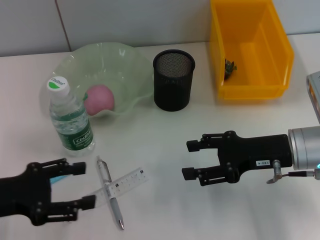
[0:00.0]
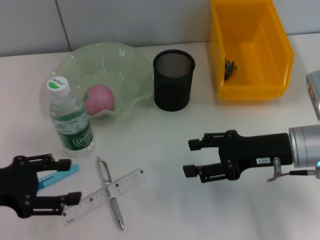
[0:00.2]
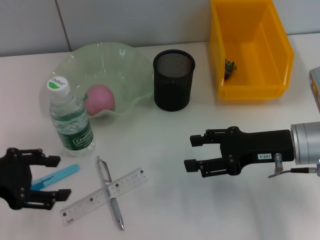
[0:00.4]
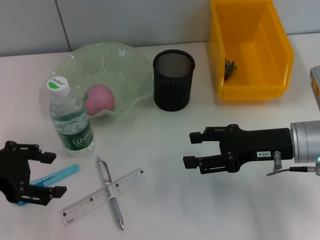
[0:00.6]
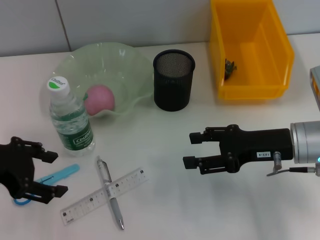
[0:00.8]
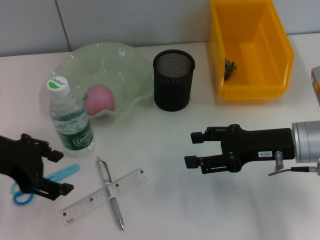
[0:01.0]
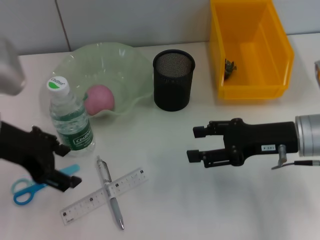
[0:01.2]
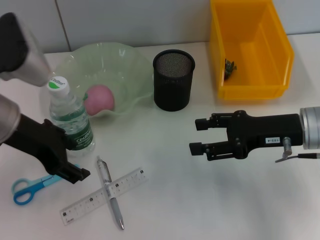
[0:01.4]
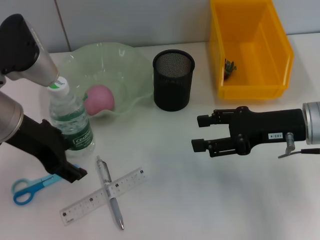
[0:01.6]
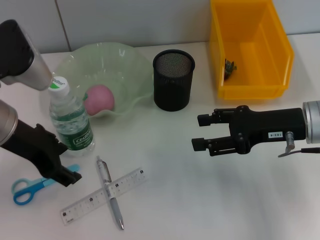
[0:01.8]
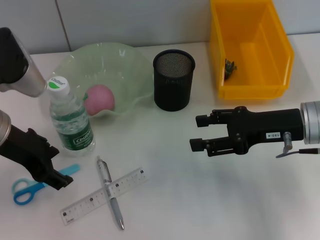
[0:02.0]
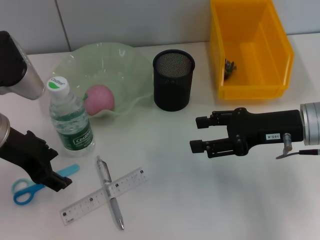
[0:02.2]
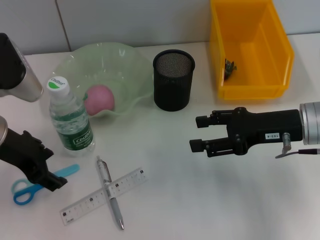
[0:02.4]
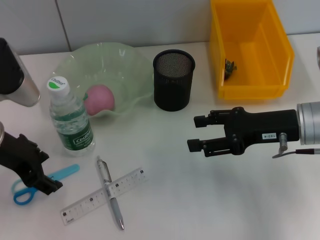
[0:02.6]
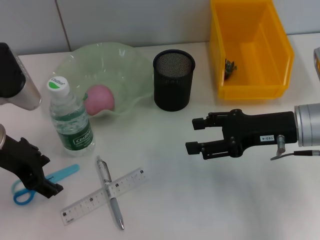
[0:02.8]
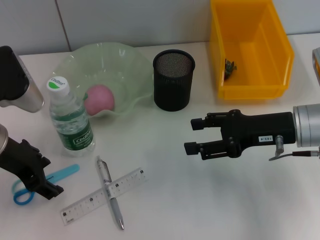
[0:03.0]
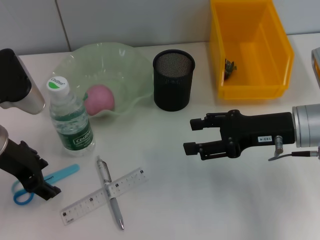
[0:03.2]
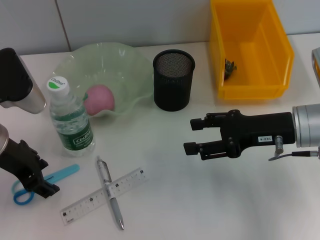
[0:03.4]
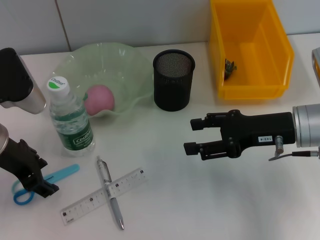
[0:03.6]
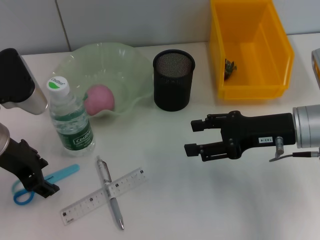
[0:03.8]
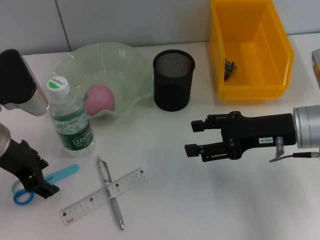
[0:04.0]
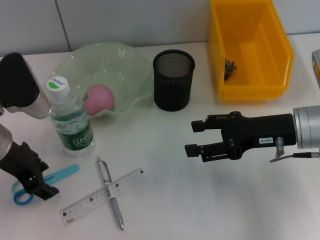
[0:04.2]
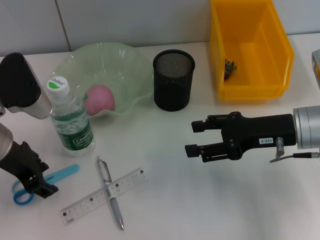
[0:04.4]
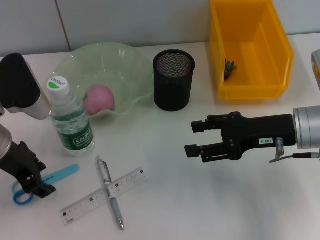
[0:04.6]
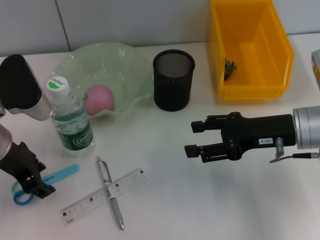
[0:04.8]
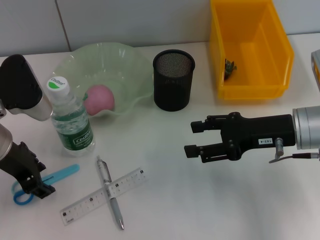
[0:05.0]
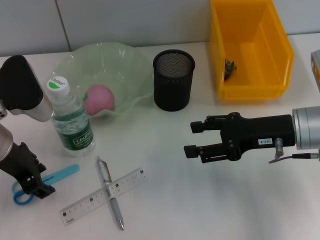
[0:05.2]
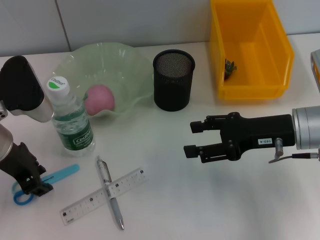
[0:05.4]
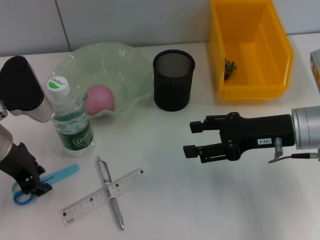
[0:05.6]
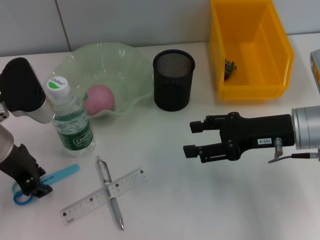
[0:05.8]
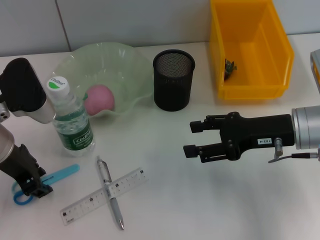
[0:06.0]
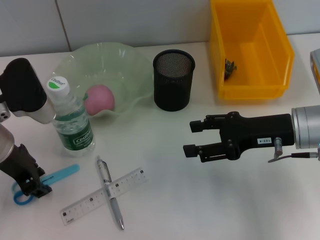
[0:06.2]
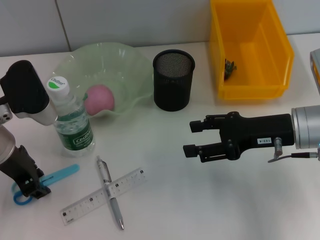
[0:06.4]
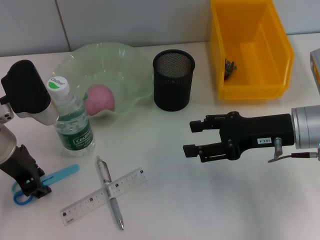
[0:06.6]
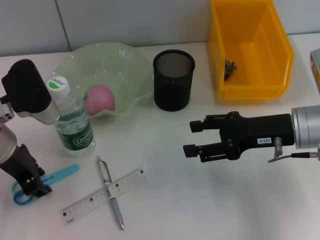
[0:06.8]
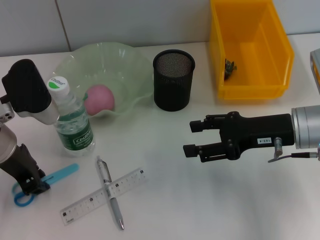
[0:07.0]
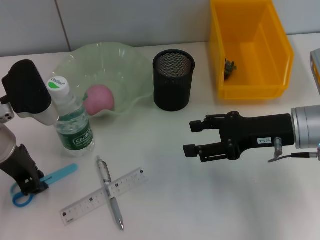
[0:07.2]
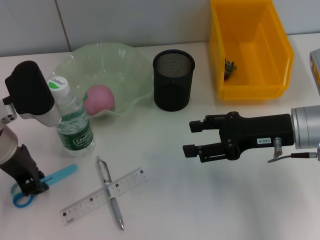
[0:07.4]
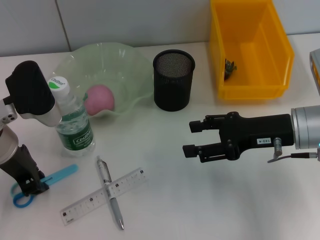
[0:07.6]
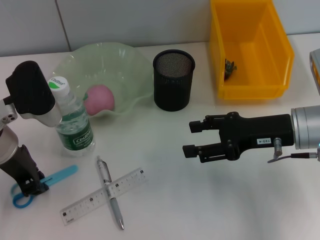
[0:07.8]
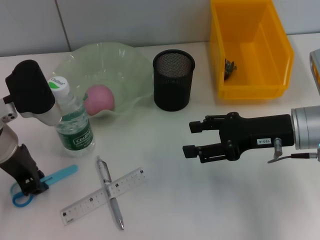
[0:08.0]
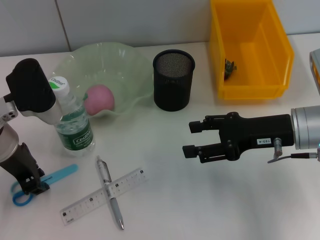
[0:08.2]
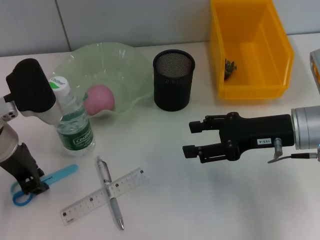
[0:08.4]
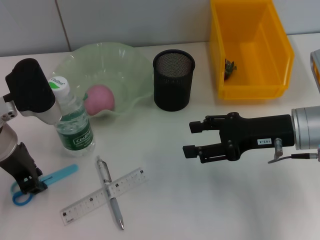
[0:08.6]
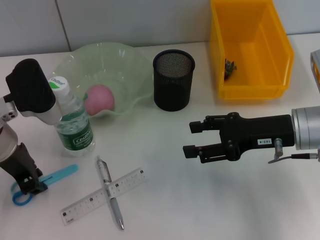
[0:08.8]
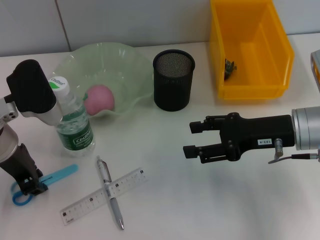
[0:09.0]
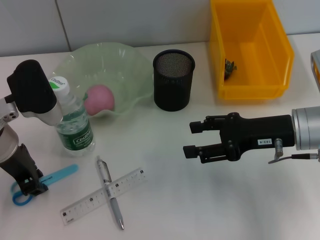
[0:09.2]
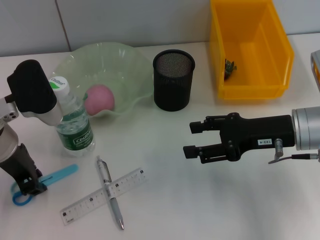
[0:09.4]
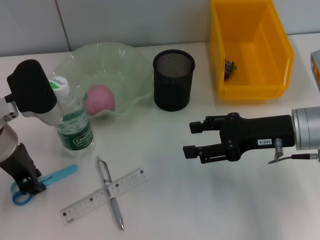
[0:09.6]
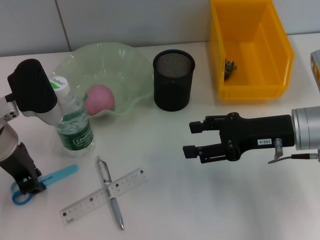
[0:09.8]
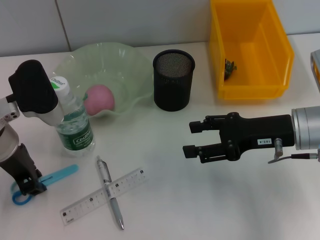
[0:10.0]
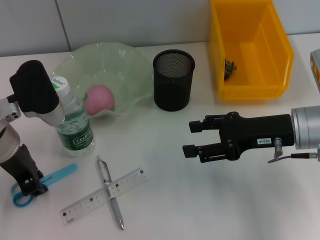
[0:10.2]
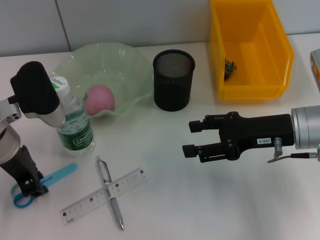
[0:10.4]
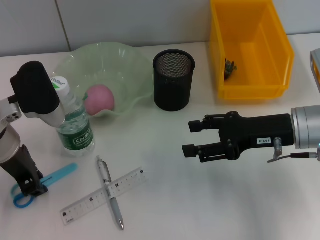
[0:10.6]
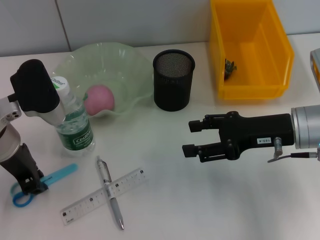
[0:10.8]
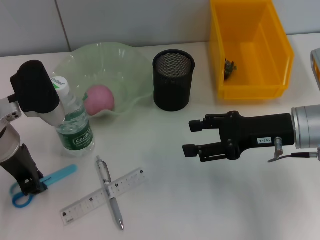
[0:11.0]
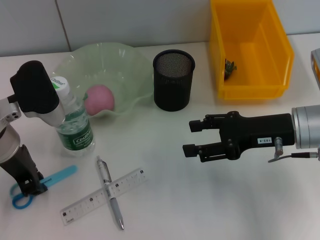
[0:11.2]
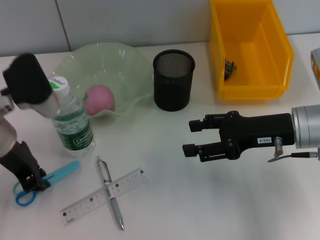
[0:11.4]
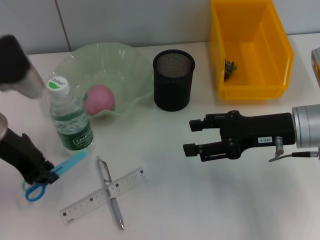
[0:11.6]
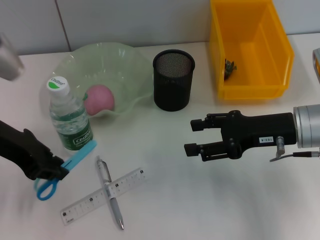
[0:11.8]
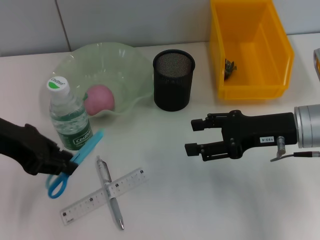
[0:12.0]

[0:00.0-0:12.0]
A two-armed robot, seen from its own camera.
Step, 0:00.0 to 0:11.0: Grab the blue scissors with the left hand.
0:00.0 to 0:01.6: The left gripper shifts roughly 15 cm to the right, forward and upward.
0:01.6 to 0:03.0: The grippers make only small movements.
0:03.0 to 0:04.4: Both grippers stay put.
0:04.4 to 0:06.0: The left gripper closes its fingers.
0:06.0 to 0:09.0: Both grippers stay put.
0:09.0 to 0:10.4: Both grippers stay put.
0:10.4 to 0:12.0: The left gripper moves upward, roughly 5 cm.

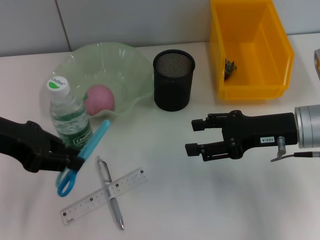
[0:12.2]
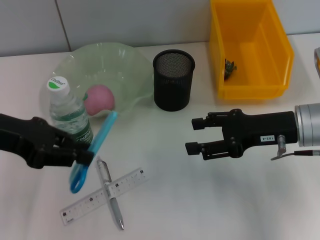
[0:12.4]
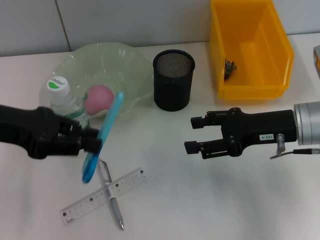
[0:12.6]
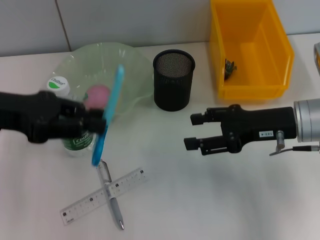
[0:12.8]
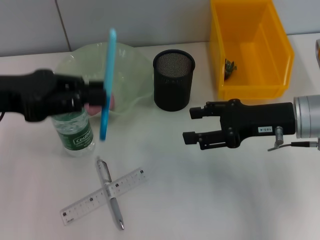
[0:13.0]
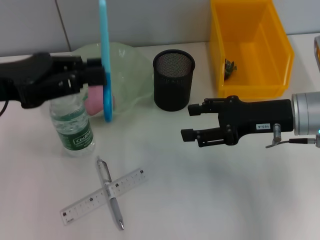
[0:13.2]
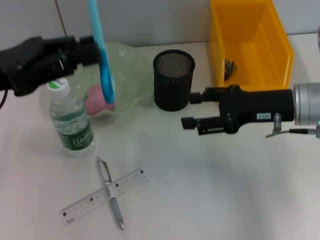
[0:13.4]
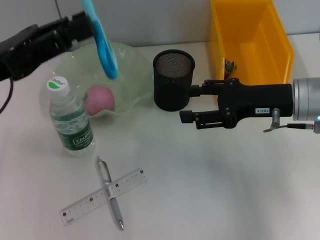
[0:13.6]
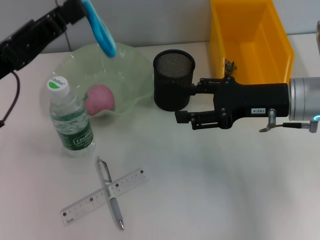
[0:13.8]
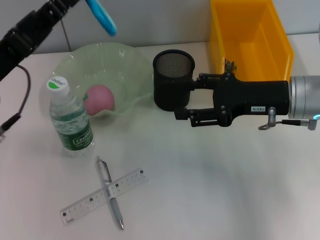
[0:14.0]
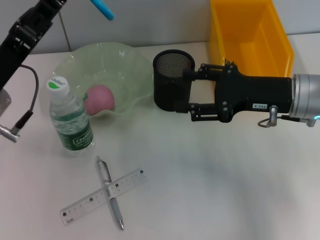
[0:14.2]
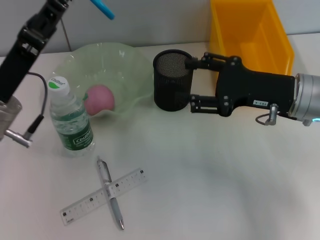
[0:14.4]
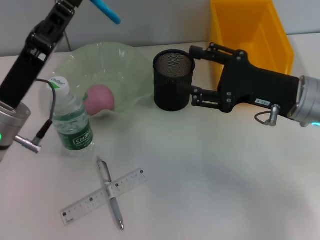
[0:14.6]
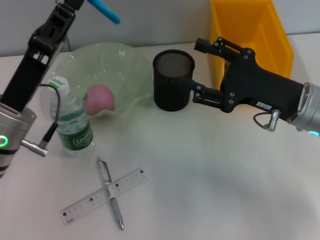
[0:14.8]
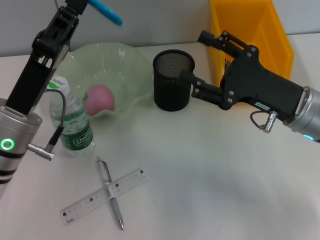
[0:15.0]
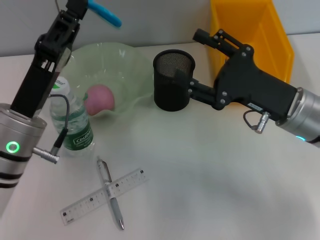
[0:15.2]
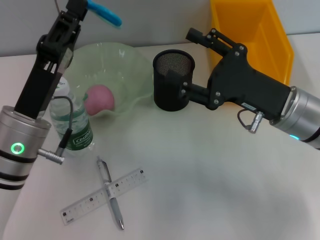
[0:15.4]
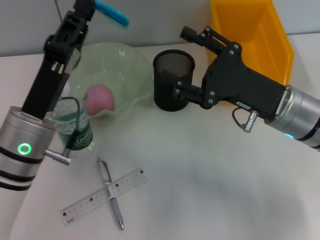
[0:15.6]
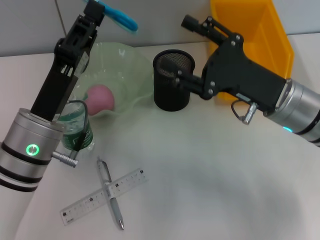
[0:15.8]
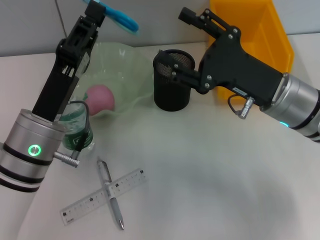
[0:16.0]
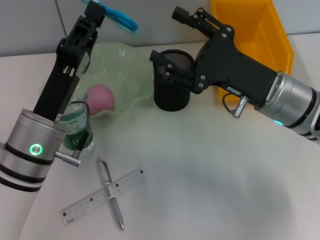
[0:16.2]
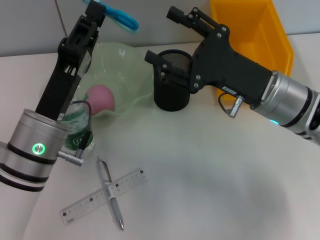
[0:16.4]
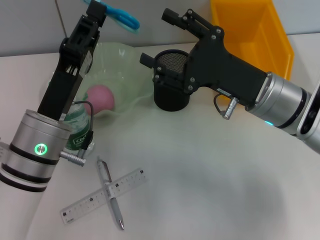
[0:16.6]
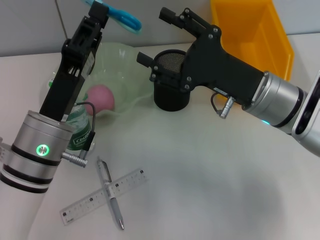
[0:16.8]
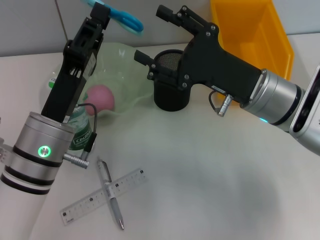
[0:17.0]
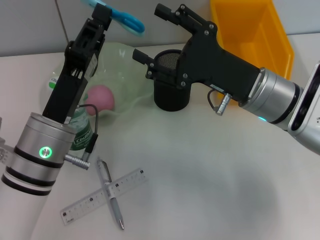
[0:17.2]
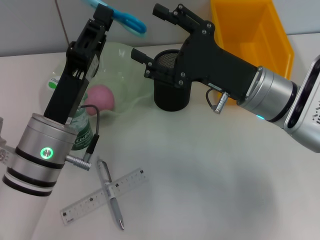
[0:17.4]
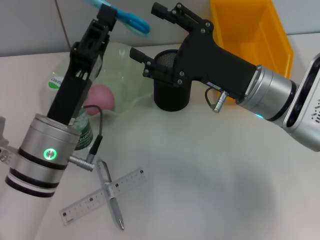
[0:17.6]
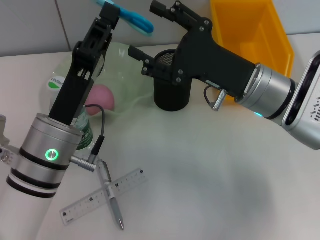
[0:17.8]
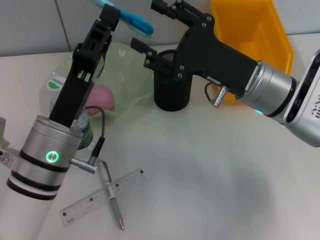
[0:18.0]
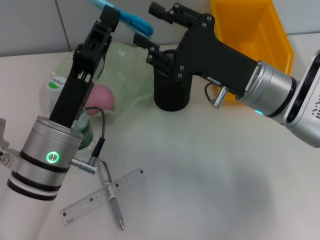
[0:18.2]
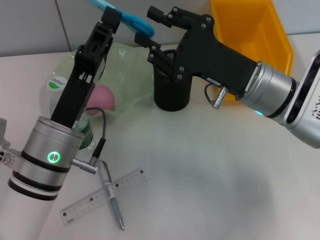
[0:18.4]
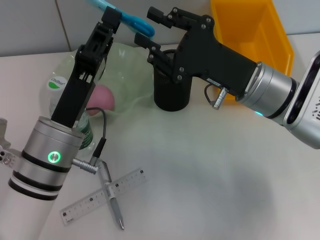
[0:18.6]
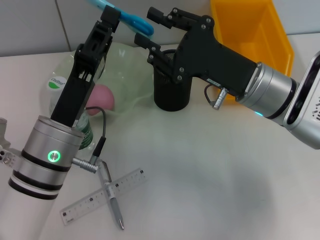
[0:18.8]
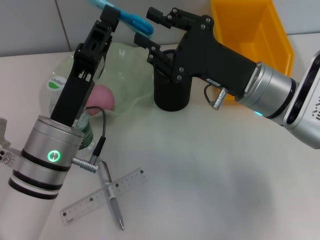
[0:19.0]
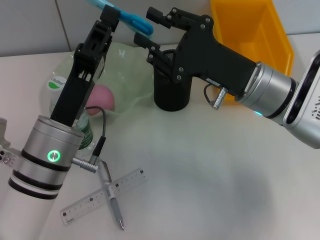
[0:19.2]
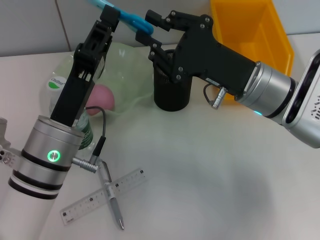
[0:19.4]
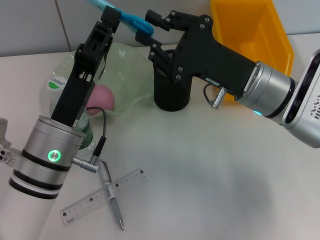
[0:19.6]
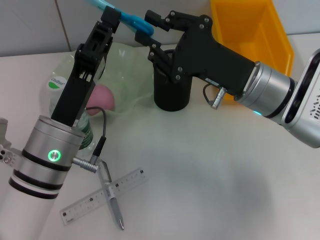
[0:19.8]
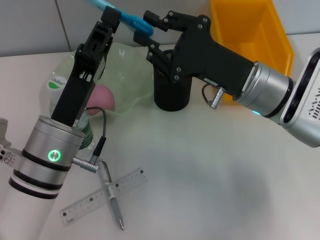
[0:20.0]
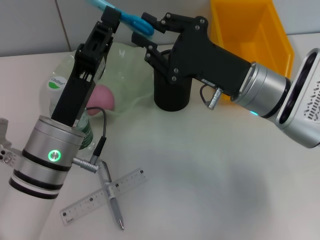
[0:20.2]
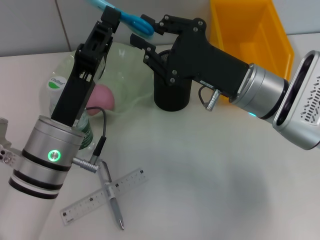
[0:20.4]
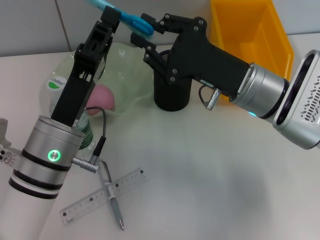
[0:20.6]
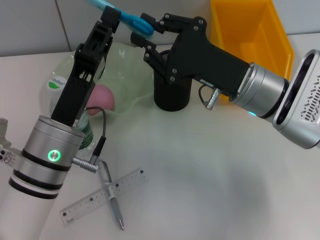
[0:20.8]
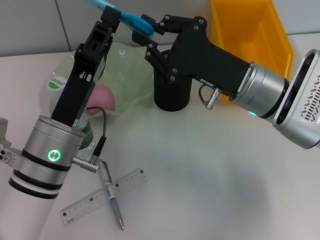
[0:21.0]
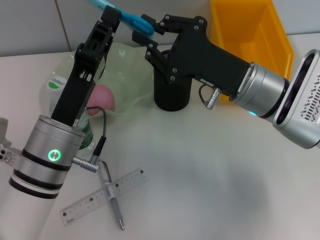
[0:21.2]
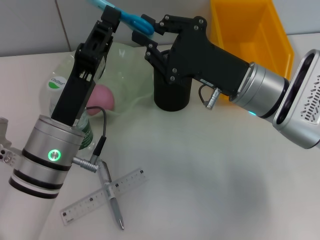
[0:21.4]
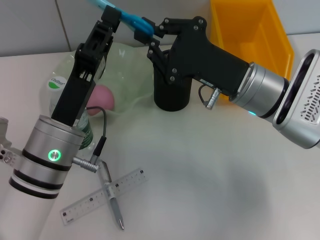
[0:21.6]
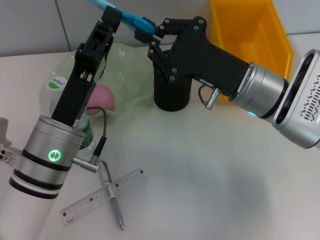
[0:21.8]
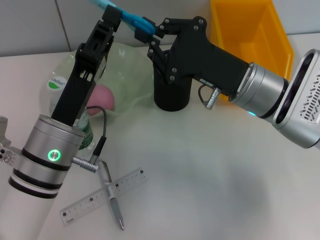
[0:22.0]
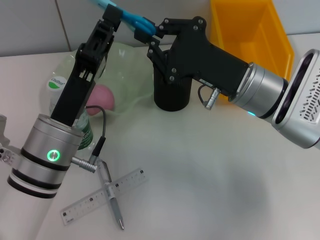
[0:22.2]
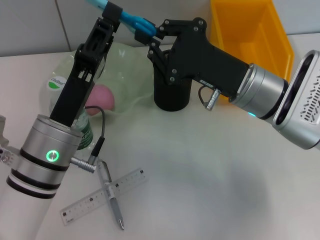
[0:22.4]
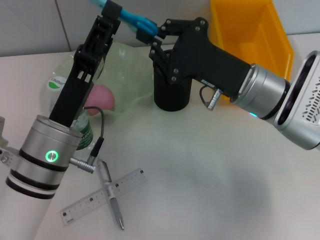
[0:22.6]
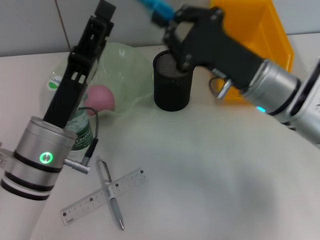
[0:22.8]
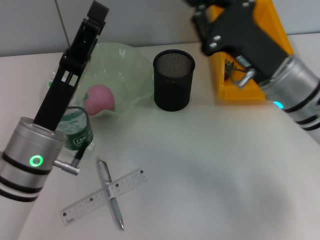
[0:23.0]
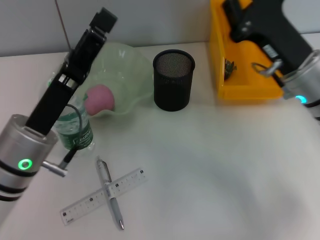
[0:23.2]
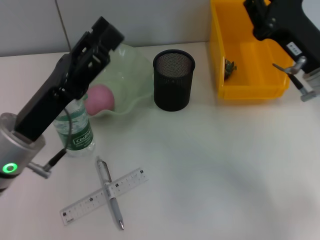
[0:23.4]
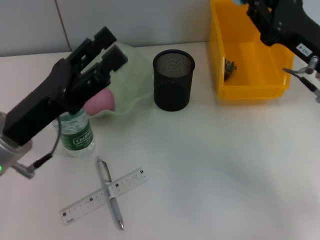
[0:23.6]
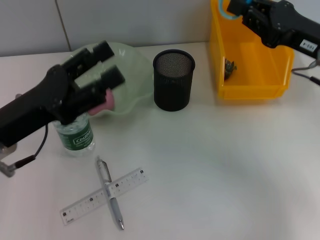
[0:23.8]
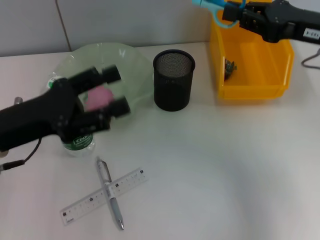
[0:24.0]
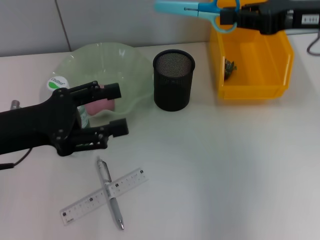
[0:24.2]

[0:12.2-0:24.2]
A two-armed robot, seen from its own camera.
Step, 0:12.2 to 0:22.6: Pass the blue scissors from the left hand to the right hand.
0:13.8 to 0:15.2: The left gripper shifts approximately 10 cm downward and to the right.
0:16.6 to 0:18.2: There are only small adjustments of the grippers.
0:18.2 to 0:19.8: The right gripper closes.
0:19.8 to 0:21.2: The two grippers keep their place.
0:21.2 to 0:22.6: The left gripper opens.
0:22.6 to 0:24.2: The left gripper goes approximately 10 cm to the left, and opens; the right gripper is displaced upward and to the right by some 15 cm.
